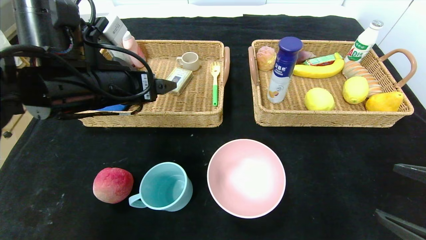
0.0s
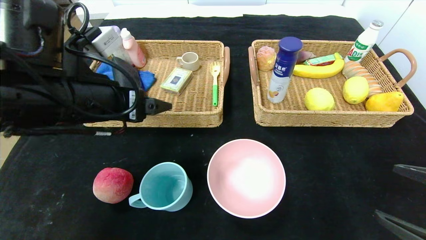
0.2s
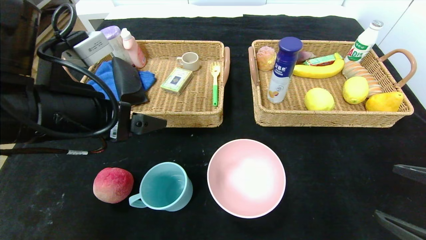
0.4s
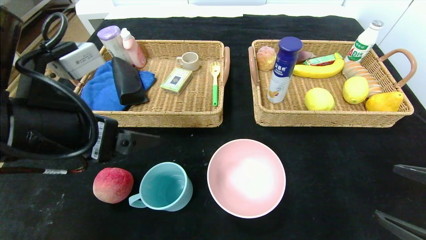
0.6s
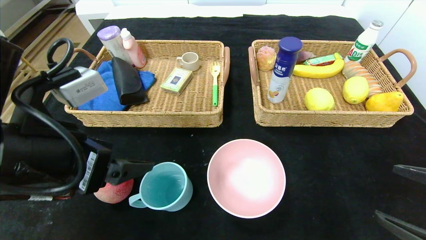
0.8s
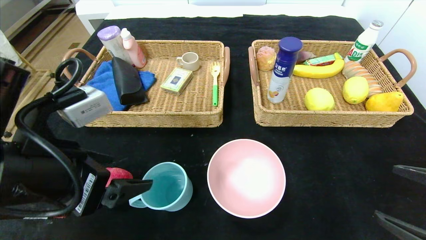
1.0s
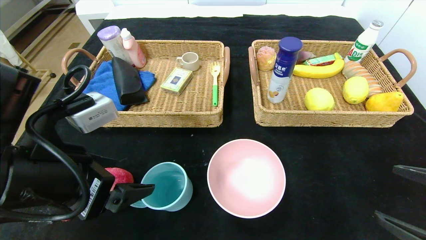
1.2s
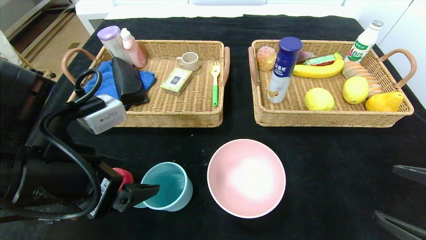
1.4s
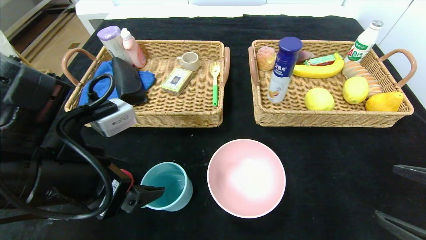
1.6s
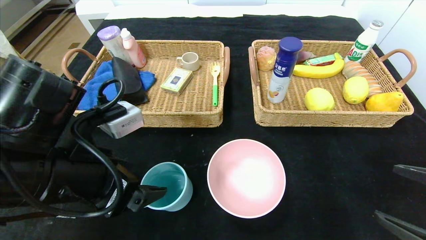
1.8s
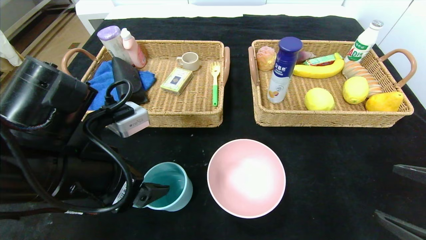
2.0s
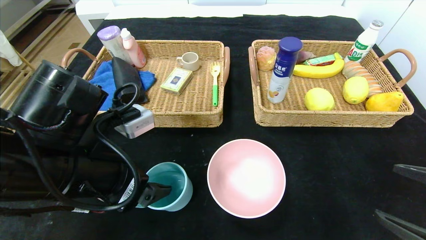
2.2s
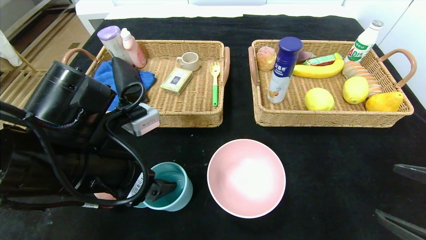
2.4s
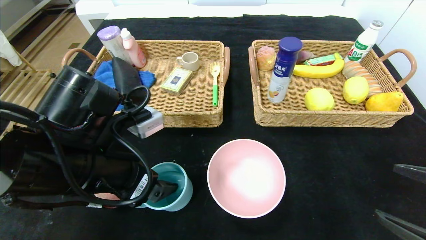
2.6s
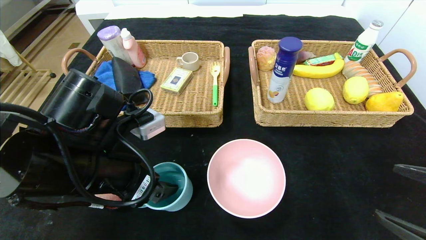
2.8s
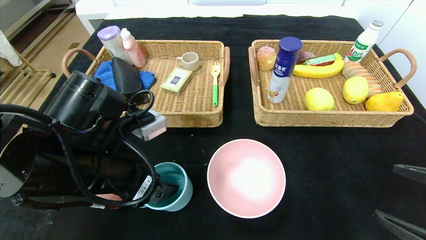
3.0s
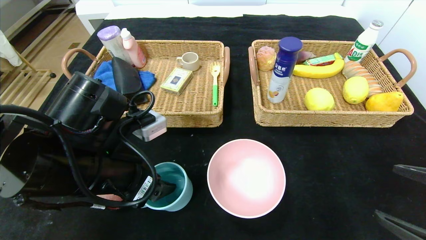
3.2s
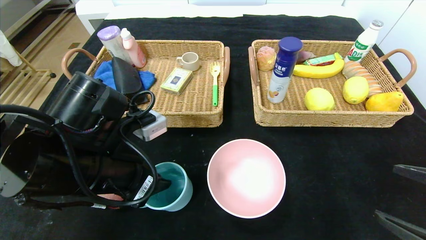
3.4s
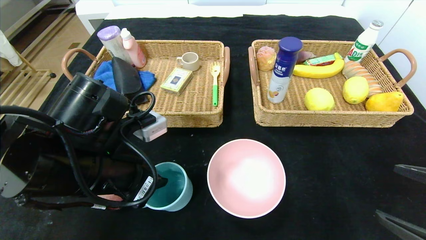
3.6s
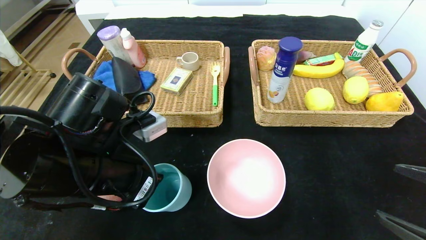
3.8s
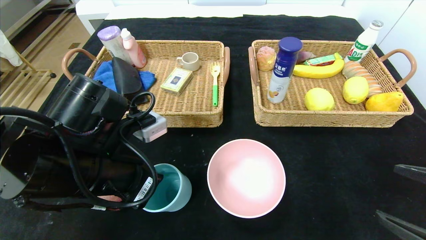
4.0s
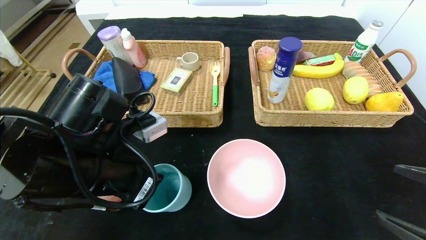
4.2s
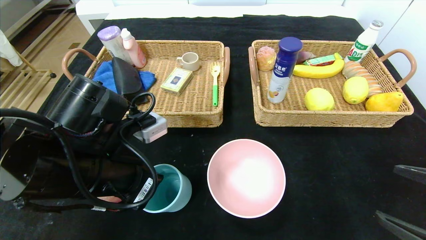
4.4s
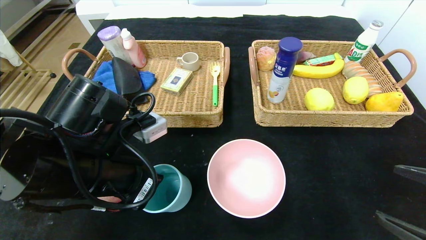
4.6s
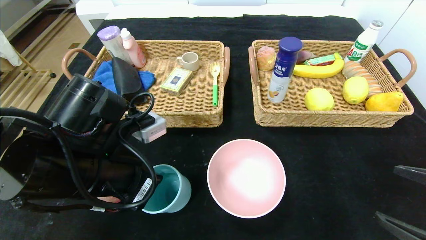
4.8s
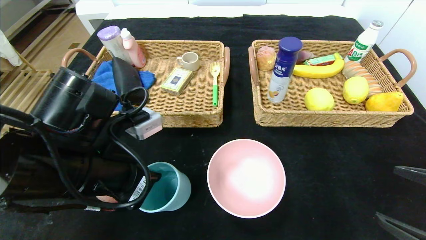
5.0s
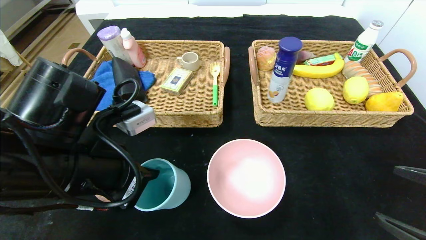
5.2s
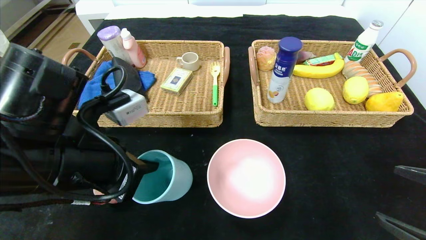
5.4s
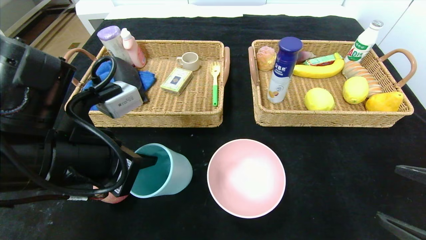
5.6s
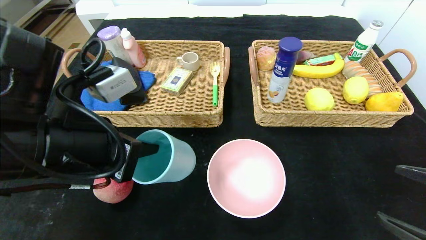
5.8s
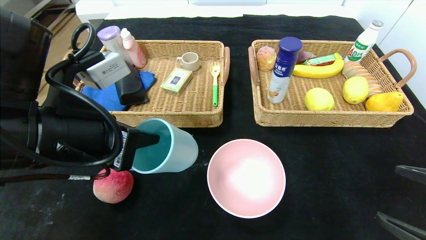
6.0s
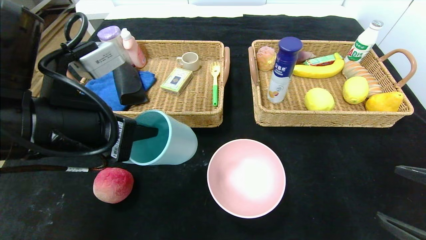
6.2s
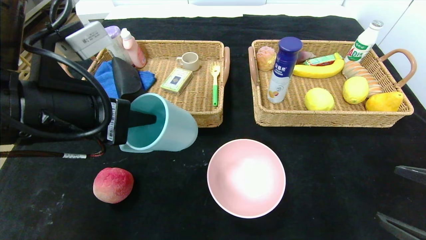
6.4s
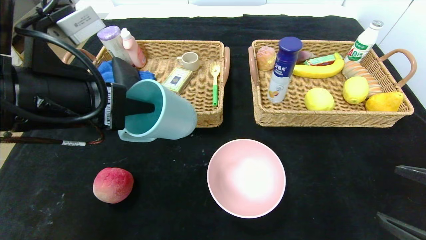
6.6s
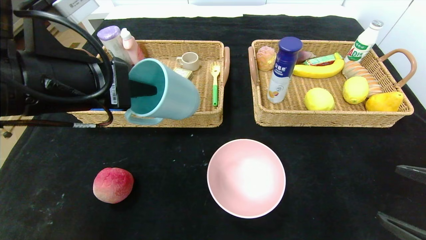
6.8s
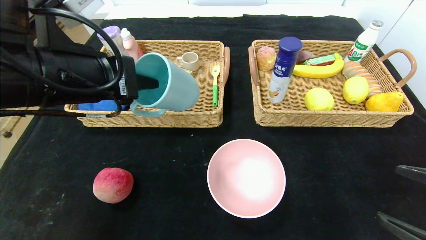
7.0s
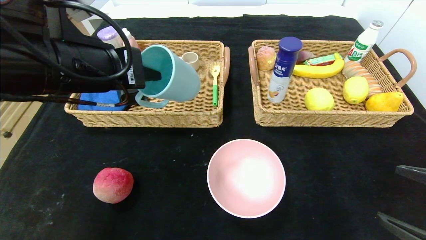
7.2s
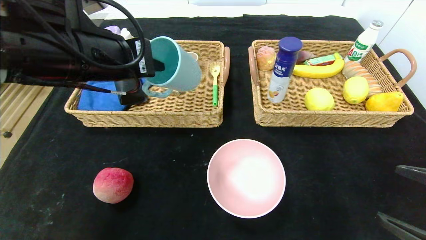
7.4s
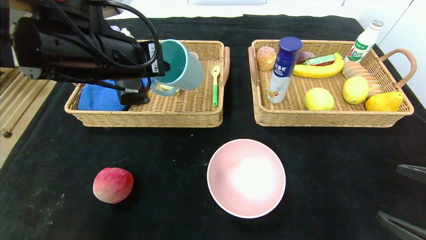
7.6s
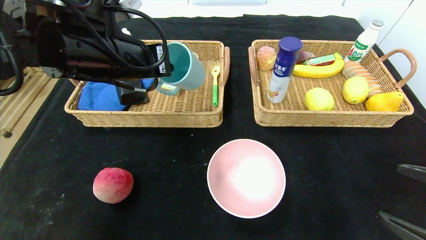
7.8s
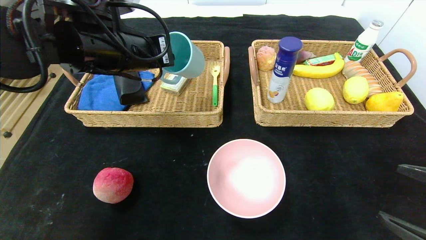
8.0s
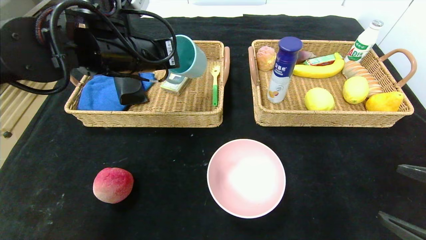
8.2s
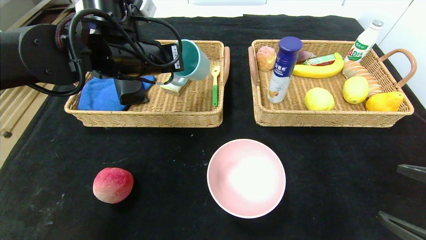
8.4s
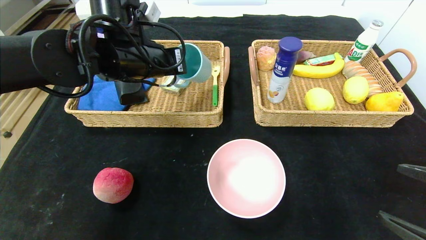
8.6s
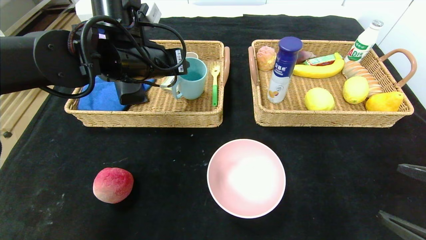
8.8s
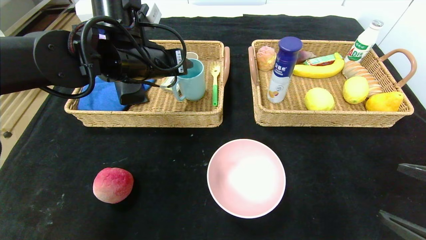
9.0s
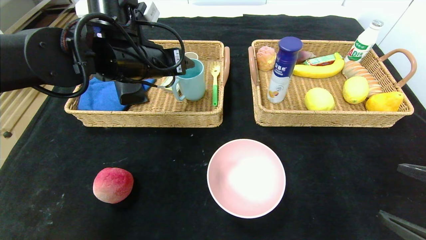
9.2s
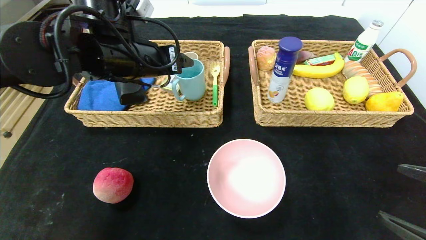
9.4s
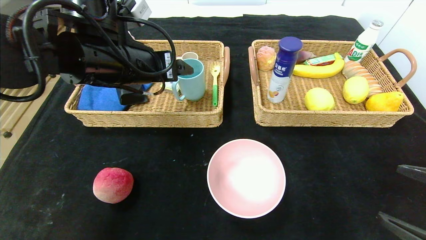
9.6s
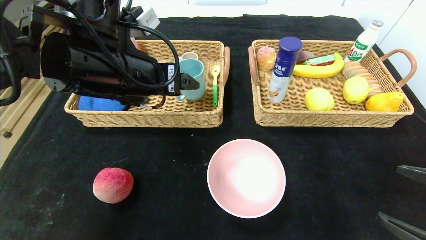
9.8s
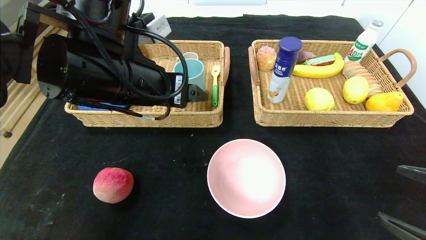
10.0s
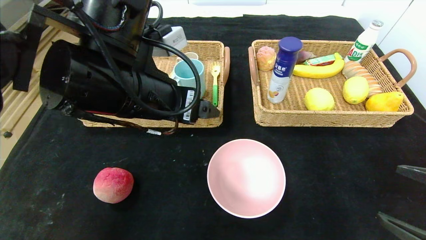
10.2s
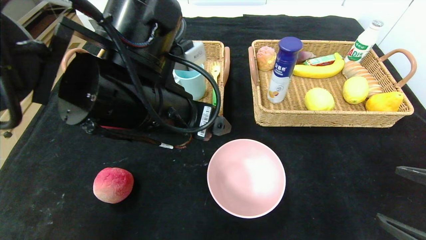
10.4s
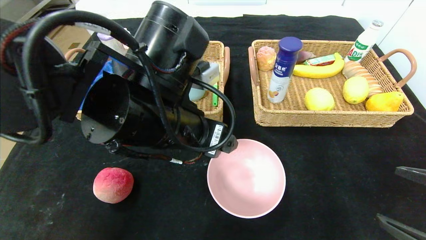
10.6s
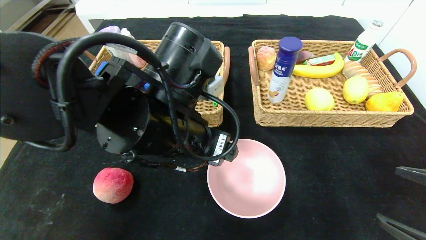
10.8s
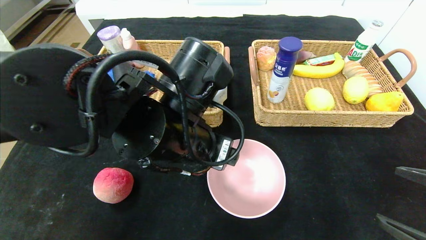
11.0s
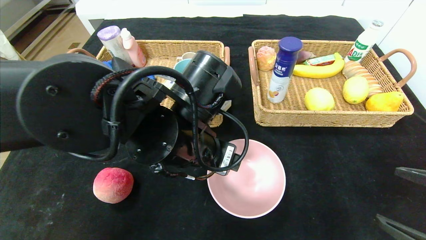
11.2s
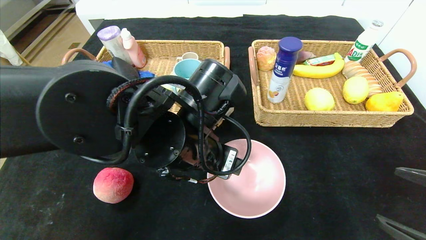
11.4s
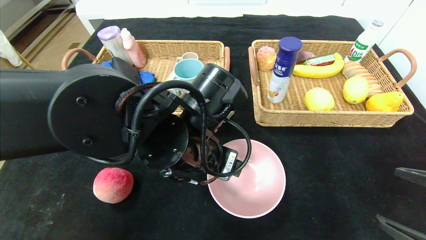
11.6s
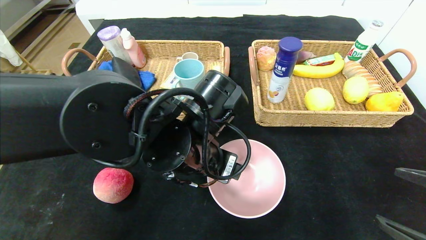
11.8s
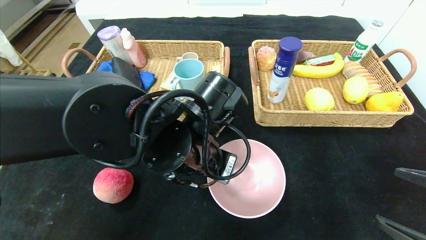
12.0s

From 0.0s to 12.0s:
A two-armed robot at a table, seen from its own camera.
Step, from 0.0s to 9.2s: Grasp the blue cup and put it in the left basket.
From 0.0s to 1.6s: The left gripper shifts approximately 10 cm backward.
From 1.6s to 3.0s: The grippers stay close to where they were, moving slightly.
From 3.0s to 4.4s: The left gripper closes up.
From 4.4s to 6.0s: The left gripper shifts roughly 5 cm upward.
From 6.0s to 7.6s: The left gripper goes some 10 cm forward and upward.
From 7.6s to 9.0s: The left gripper goes approximately 5 cm forward, and opens.
From 9.0s to 10.4s: The left gripper moves backward and to the right, some 15 cm, and opens.
From 10.4s to 12.0s: The left gripper moves downward, some 5 cm.

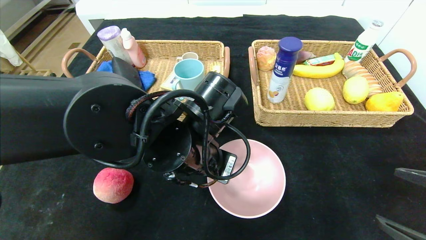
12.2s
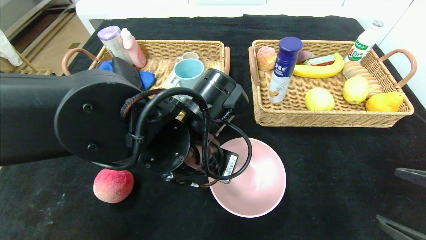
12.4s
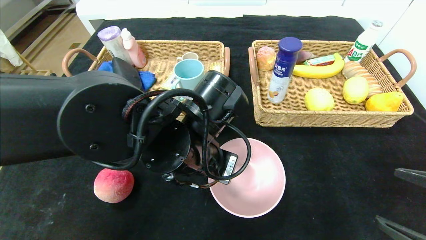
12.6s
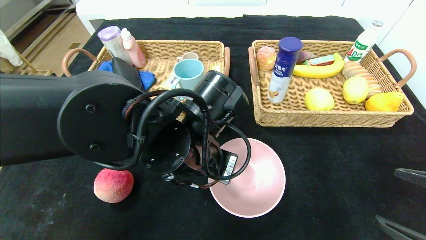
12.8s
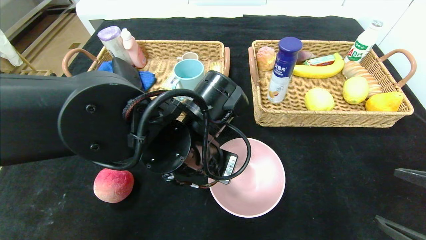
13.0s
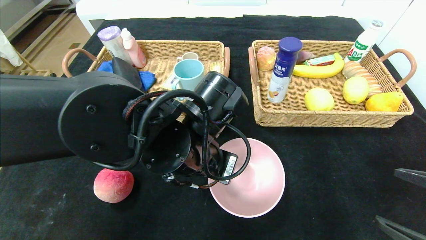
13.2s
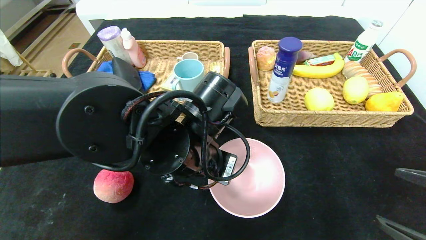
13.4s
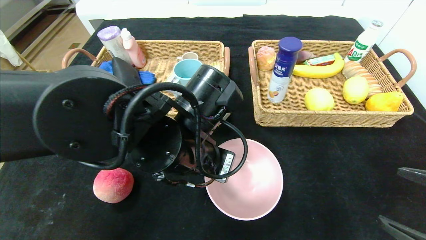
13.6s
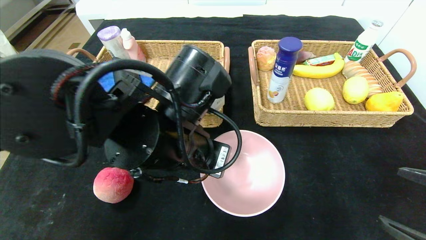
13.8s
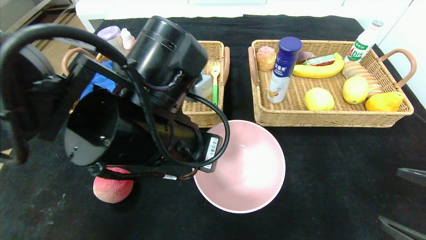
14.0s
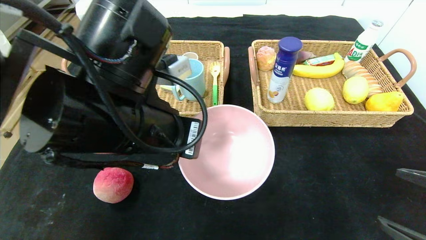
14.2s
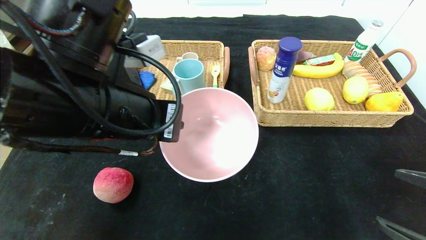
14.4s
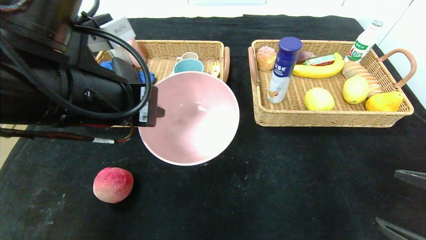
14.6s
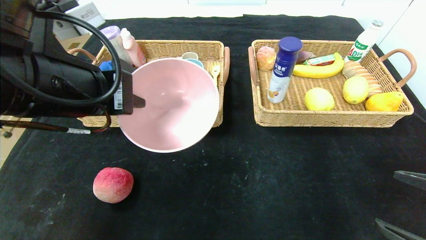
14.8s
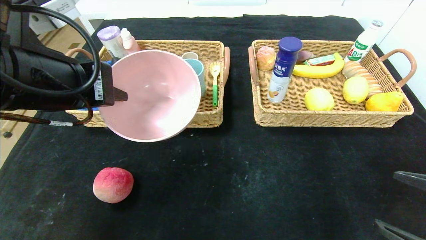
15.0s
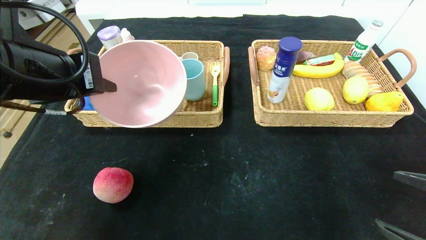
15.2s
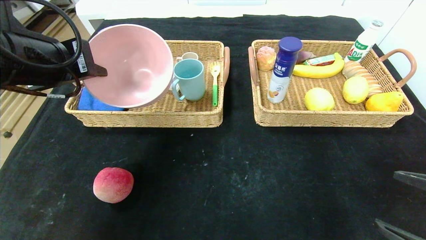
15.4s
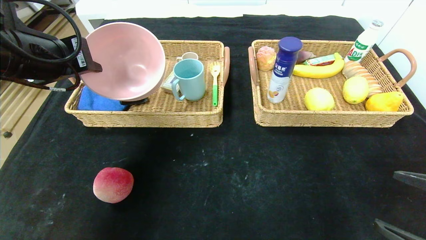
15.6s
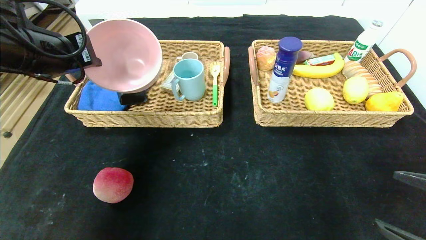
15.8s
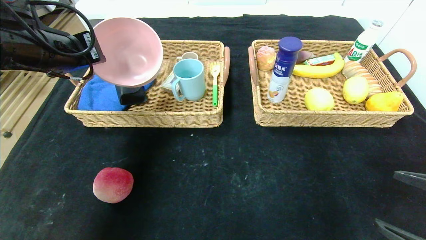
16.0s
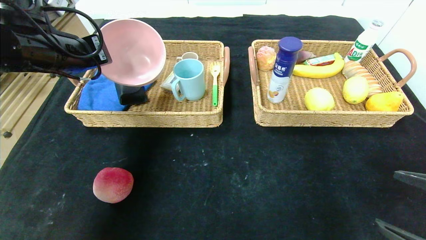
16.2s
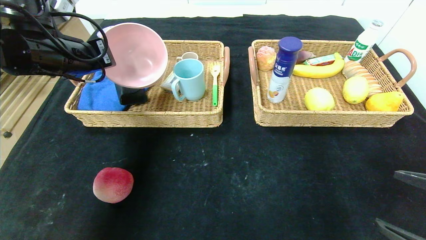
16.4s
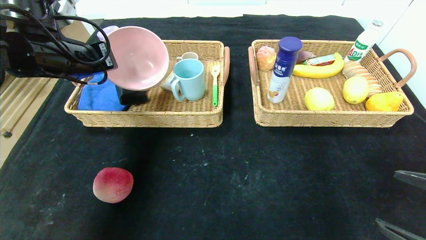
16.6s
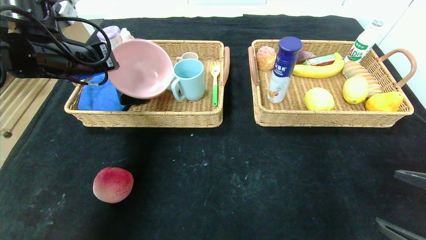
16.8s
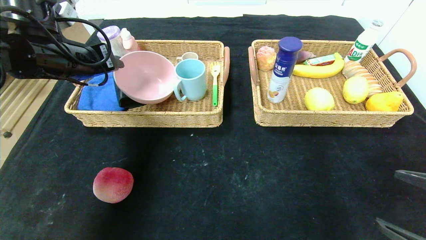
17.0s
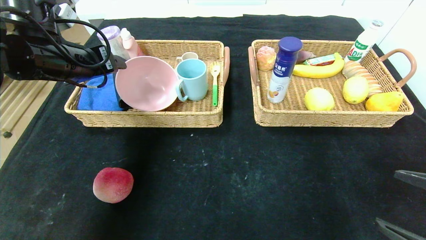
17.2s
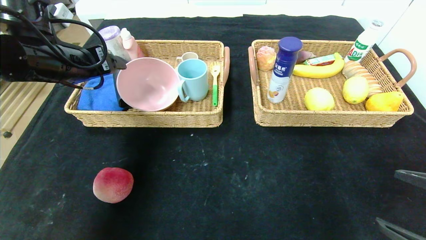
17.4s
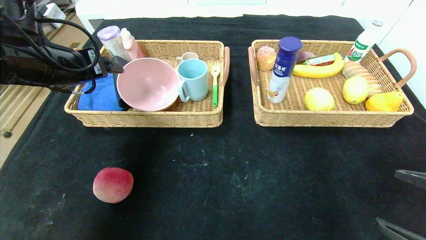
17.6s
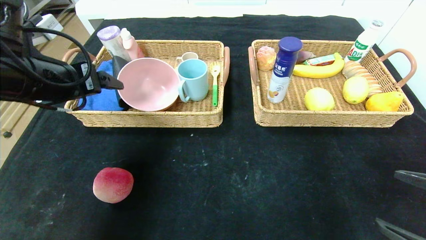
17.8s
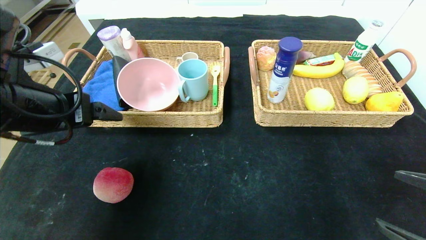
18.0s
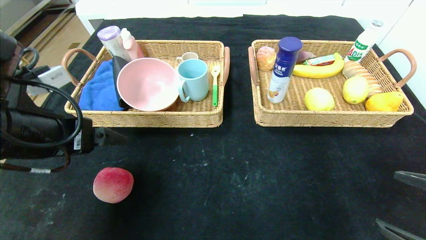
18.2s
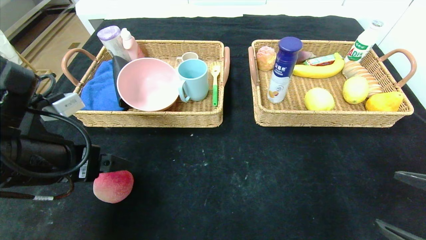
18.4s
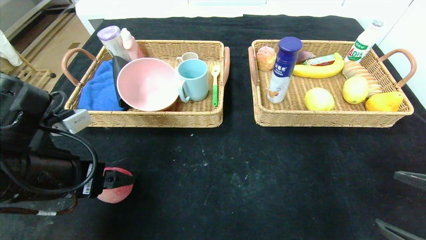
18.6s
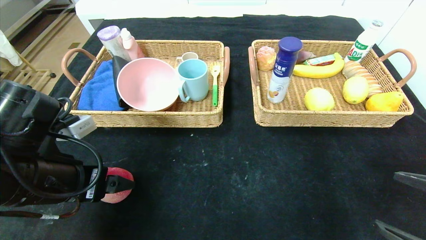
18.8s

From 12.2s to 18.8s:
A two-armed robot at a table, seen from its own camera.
Step, from 12.2s to 17.4s: Grasp the pink bowl and put it in the left basket.
From 12.2s to 13.8s: The left gripper closes its fingers.
From 13.8s to 15.4s: The left gripper shifts some 20 cm to the left and upward.
From 15.4s to 17.2s: The left gripper is displaced forward by some 10 cm, and opens up.
From 17.2s to 18.8s: The left gripper is displaced backward and downward by about 15 cm, and opens its fingers.
